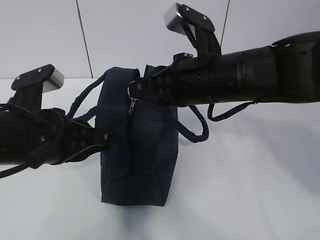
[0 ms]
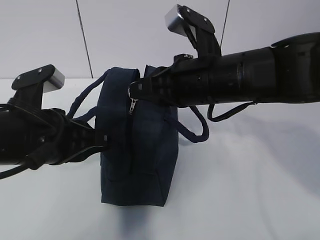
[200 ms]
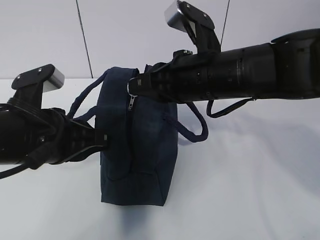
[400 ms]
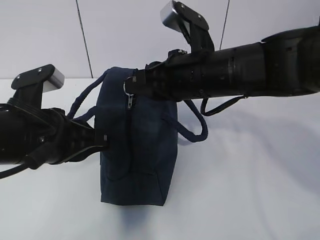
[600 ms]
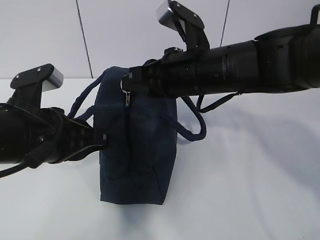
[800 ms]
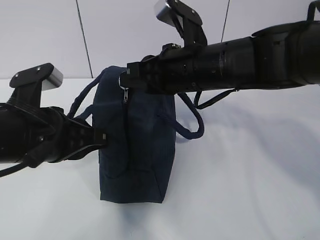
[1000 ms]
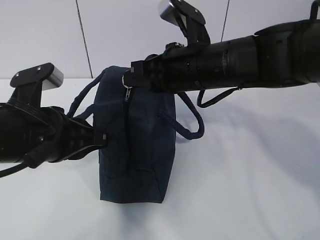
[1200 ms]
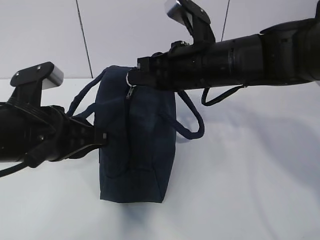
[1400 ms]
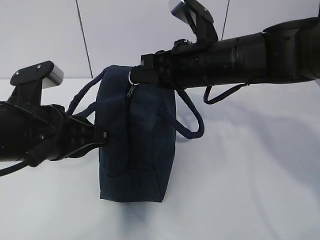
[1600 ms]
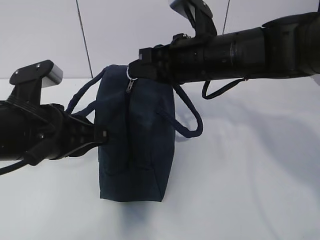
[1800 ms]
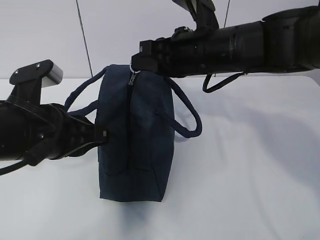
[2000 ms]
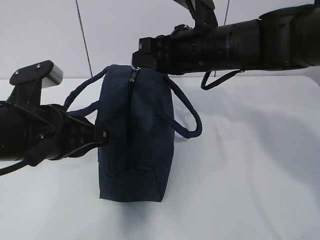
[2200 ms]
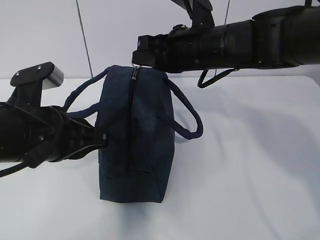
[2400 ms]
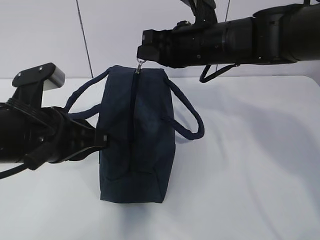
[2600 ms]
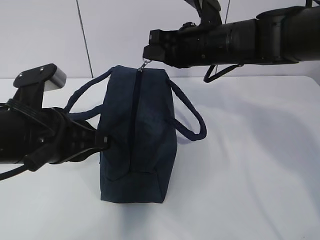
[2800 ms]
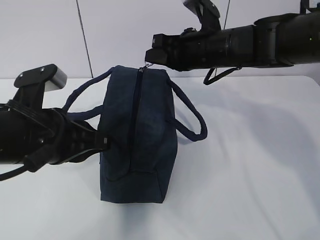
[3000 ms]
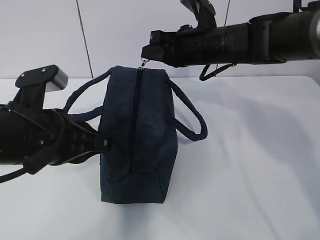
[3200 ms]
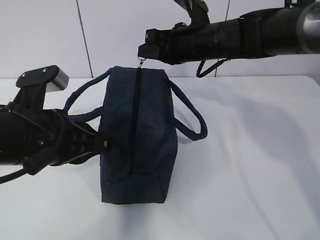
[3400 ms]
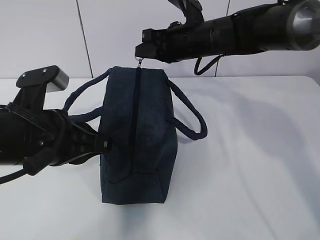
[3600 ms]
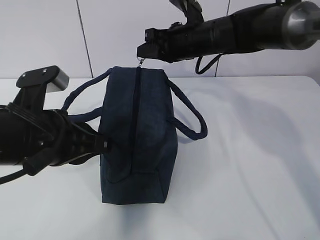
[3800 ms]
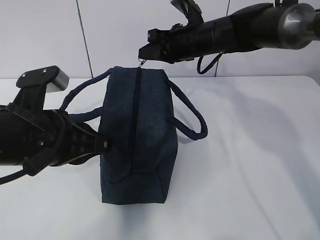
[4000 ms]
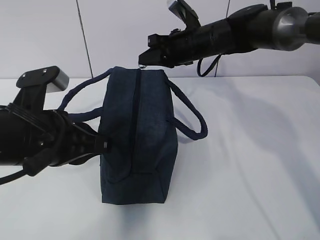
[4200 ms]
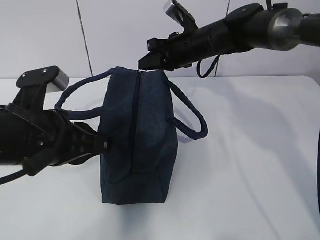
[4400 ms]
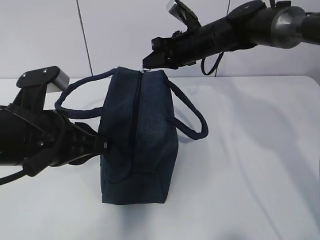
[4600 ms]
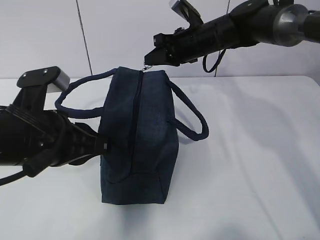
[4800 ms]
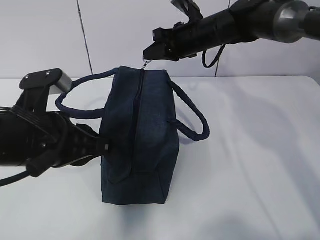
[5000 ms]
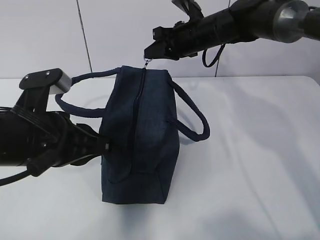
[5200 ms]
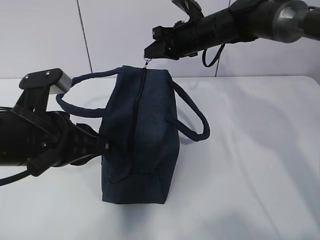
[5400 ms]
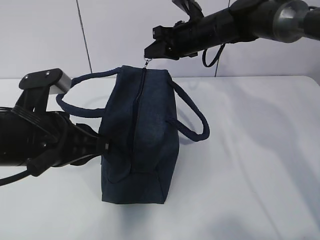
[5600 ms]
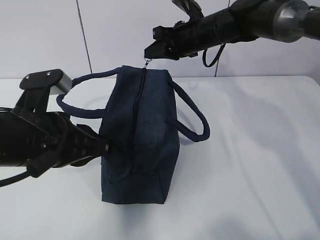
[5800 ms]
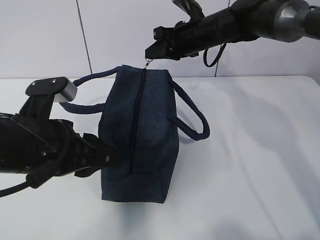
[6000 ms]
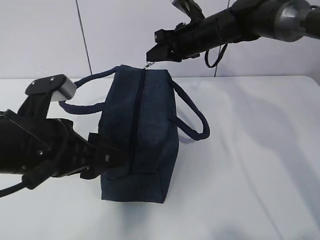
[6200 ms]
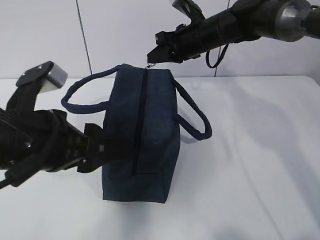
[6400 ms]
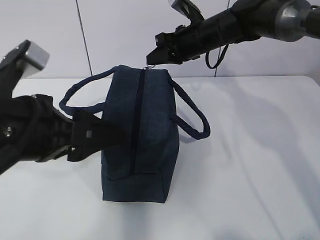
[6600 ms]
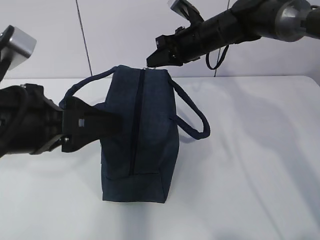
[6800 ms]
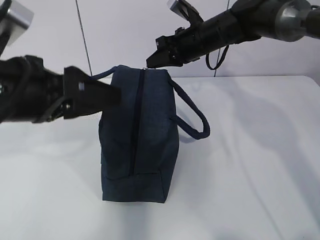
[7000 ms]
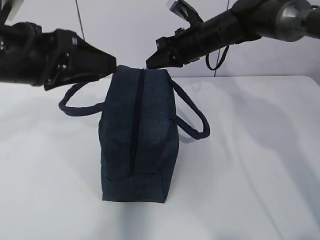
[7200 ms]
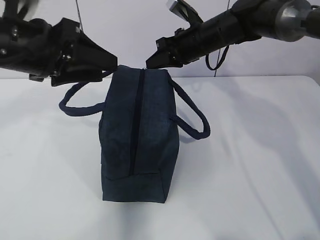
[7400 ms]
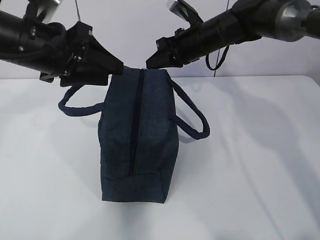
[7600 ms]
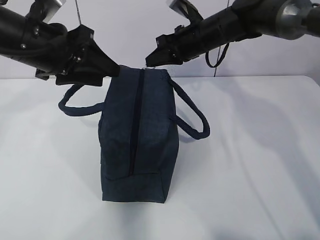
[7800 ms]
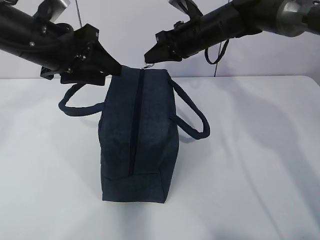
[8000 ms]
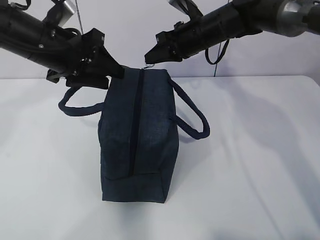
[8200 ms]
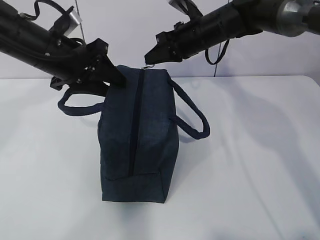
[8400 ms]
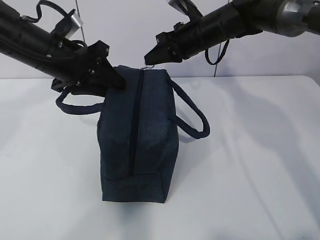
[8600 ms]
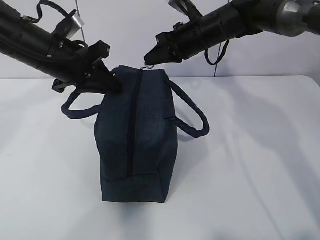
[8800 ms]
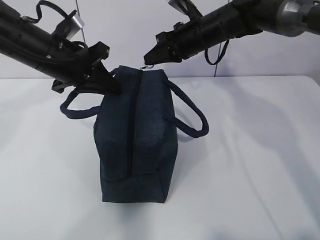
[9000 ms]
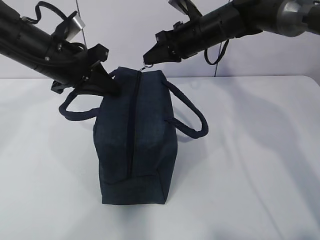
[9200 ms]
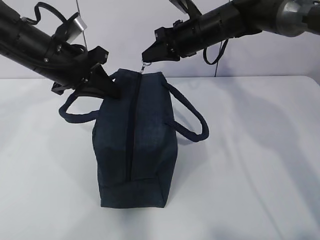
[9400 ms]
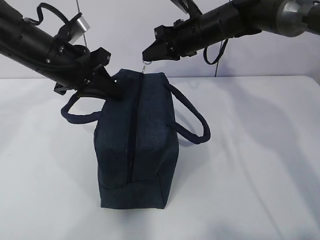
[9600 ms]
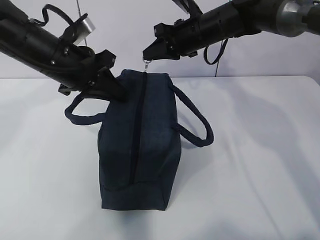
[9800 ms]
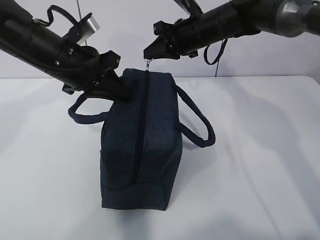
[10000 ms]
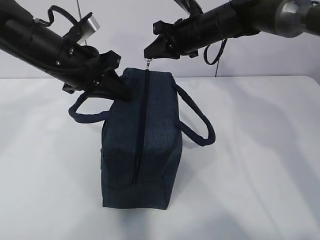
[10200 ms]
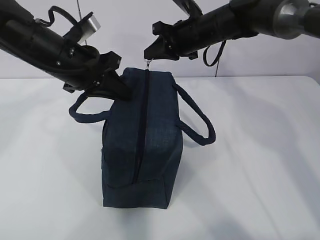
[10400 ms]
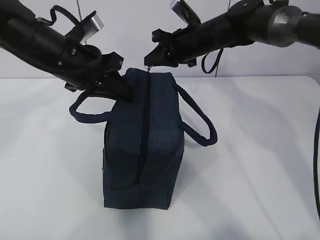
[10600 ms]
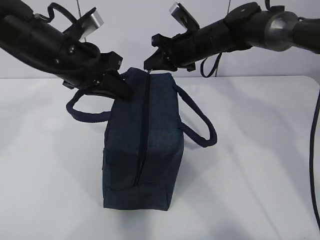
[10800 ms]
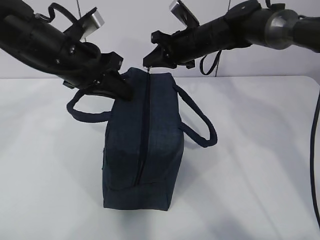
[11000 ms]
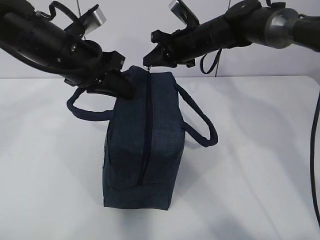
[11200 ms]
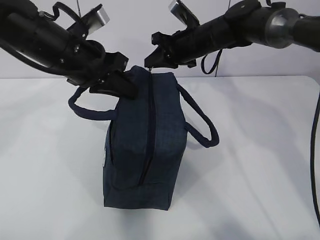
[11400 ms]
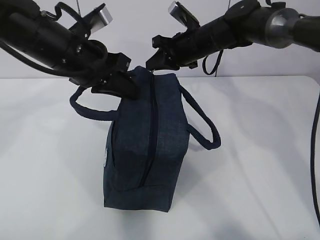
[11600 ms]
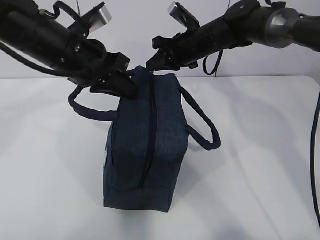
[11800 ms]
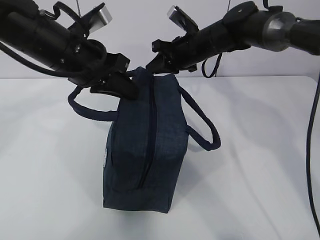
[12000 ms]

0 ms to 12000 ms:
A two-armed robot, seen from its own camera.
0 ms to 1600 ms: There are only small adjustments of the grippers.
1600 ms to 3000 ms: The right gripper travels forward by about 5 cm.
3000 ms to 4400 ms: The right gripper moves forward, roughly 10 cm.
4400 ms to 6000 ms: The left gripper opens.
6000 ms to 7600 ms: The left gripper moves forward and upward, approximately 15 cm.
7600 ms to 9000 ms: The left gripper ends up approximately 5 cm from where it was, and closes up.
9000 ms to 12000 ms: The grippers move only a little.

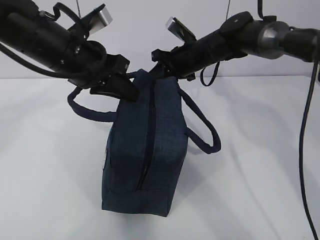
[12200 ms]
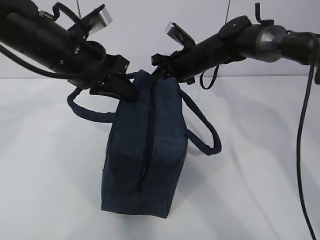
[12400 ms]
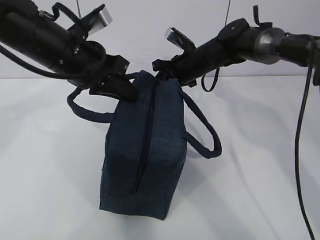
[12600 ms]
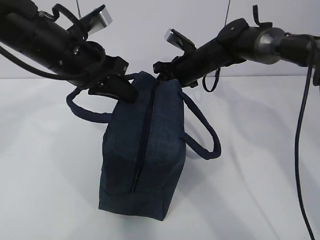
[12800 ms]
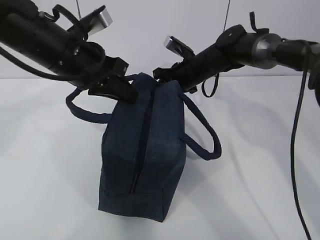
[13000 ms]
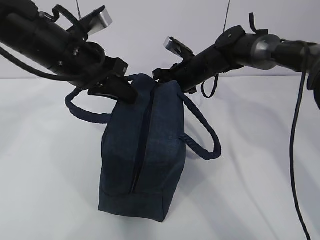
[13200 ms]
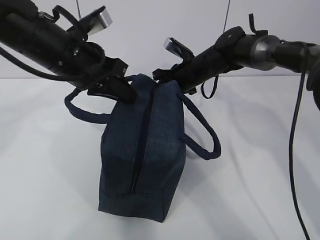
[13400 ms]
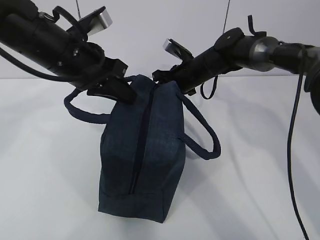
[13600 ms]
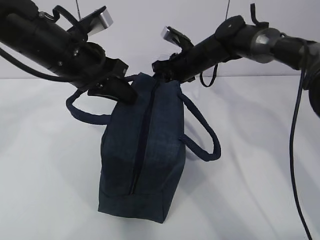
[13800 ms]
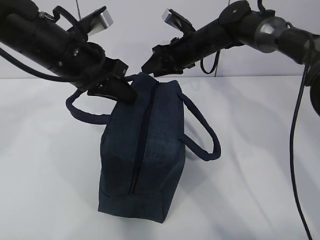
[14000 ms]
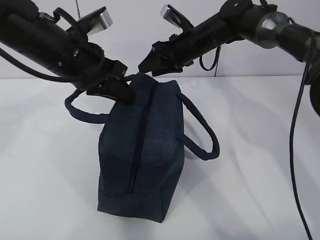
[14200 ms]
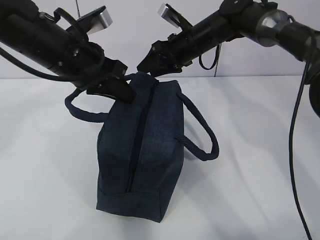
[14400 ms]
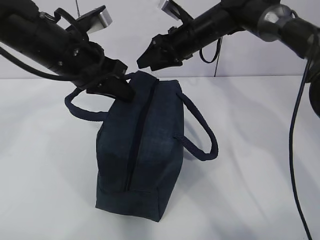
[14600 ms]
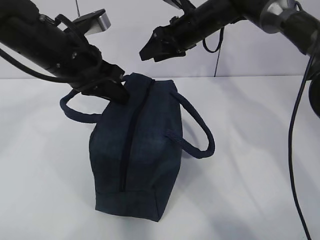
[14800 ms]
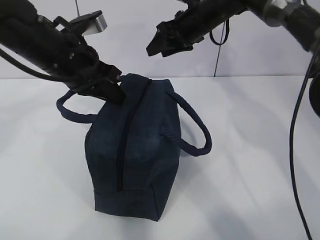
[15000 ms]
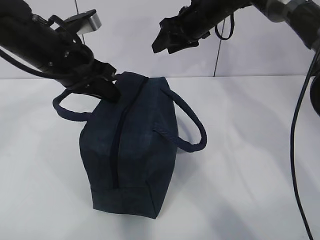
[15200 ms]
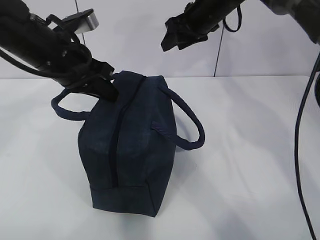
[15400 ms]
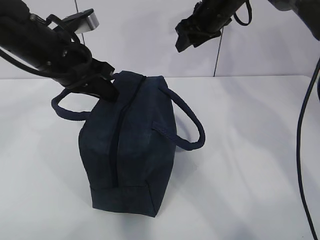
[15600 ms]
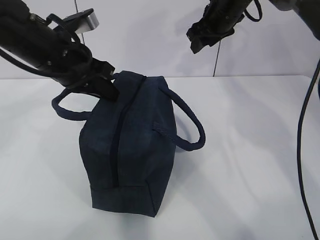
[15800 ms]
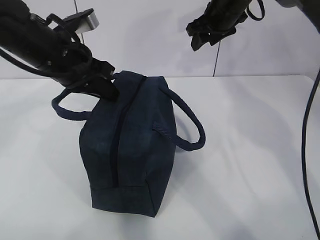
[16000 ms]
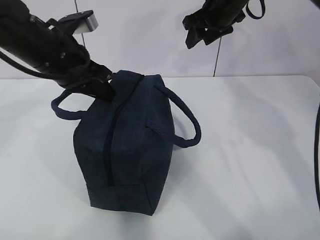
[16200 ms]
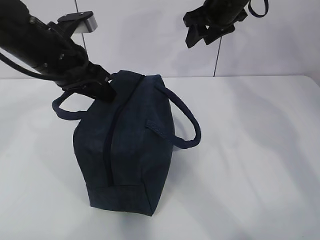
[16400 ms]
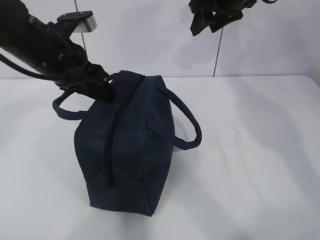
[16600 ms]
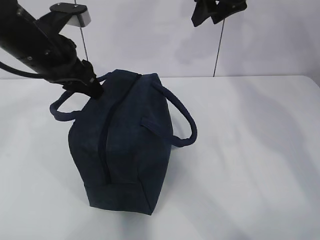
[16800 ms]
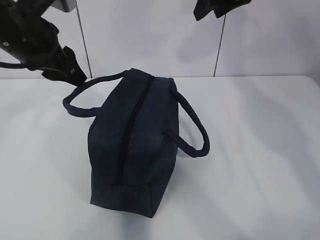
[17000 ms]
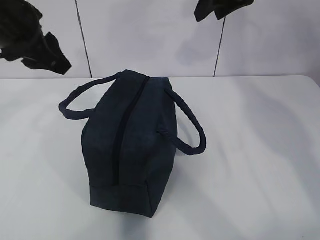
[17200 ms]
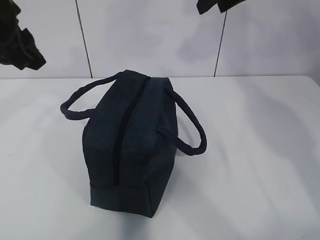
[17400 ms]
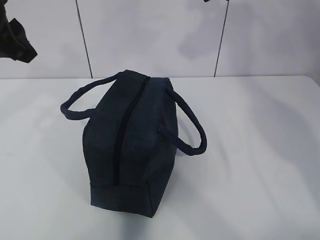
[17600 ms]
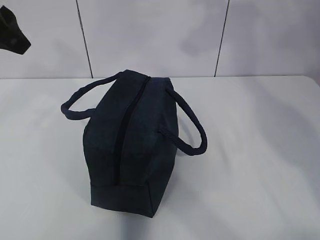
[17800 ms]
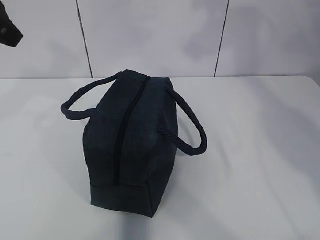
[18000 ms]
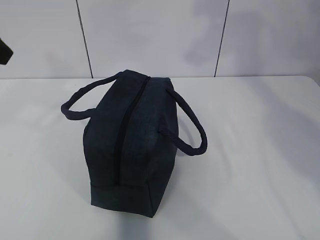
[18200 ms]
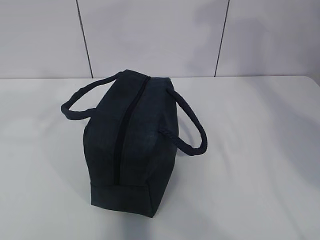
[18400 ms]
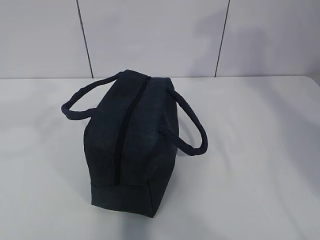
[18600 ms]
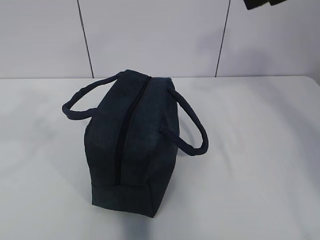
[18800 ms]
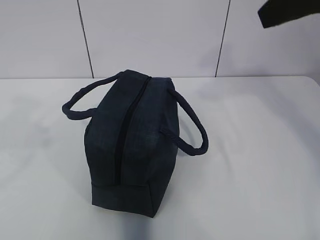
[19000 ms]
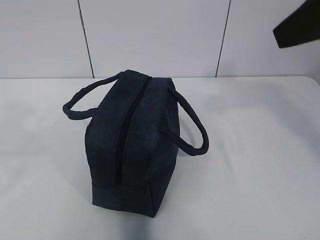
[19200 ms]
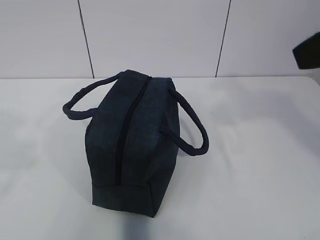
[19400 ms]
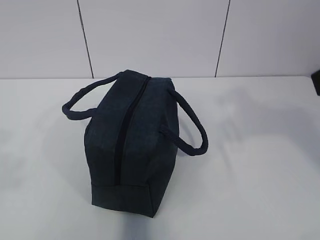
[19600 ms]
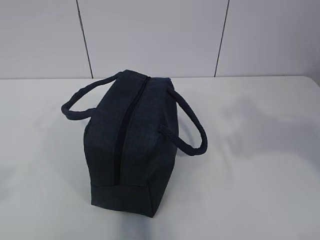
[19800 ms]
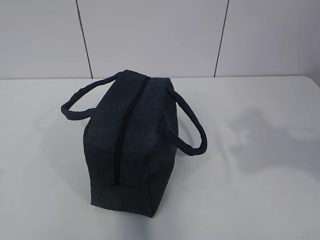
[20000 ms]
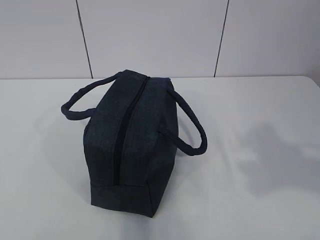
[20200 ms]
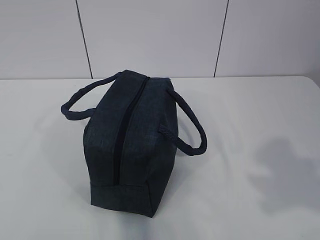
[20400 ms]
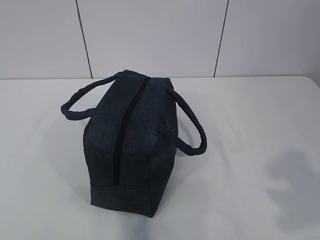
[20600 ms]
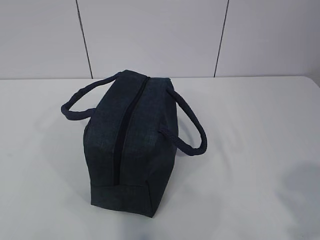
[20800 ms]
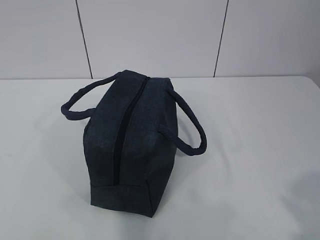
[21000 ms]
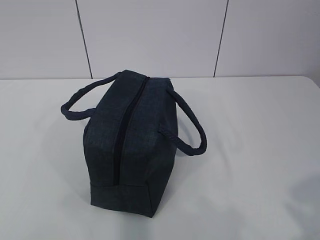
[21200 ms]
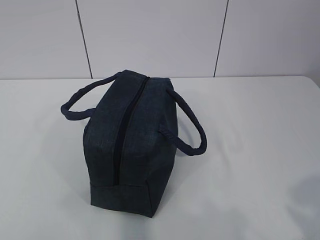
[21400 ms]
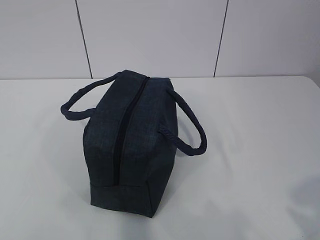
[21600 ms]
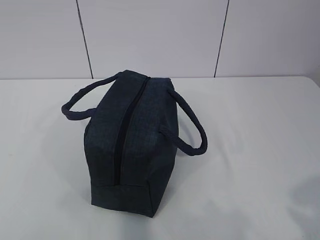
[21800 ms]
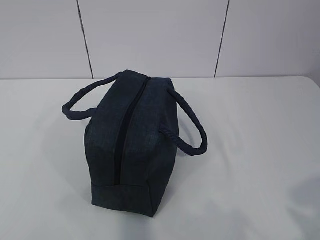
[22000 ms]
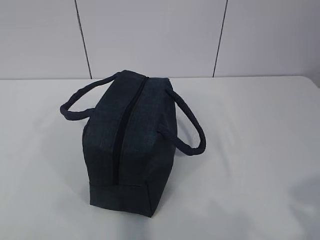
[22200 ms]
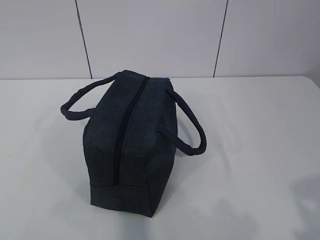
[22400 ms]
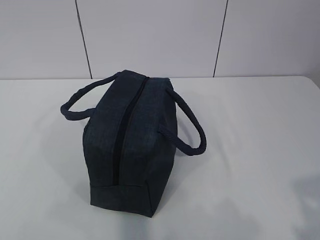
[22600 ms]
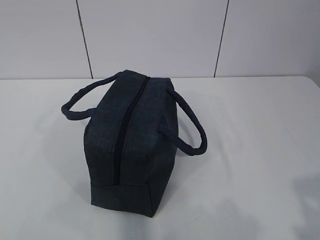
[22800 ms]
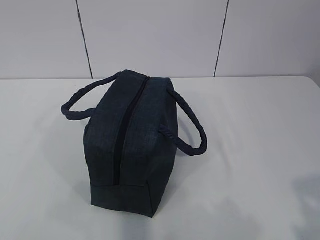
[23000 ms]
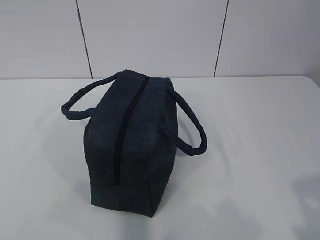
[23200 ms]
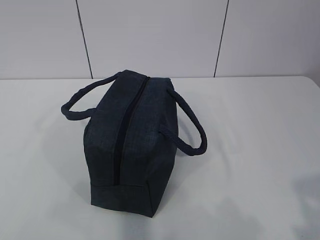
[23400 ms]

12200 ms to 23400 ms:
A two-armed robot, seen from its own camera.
12200 ms to 13800 ms: The grippers move only a little.
13800 ms to 15400 ms: The right gripper travels upward by about 10 cm, and opens.
15400 ms to 17000 ms: The right gripper moves upward and backward, some 10 cm, while the left gripper moves about 5 cm, and opens.
17000 ms to 18600 ms: The left gripper shifts roughly 15 cm backward and to the left, while the right gripper moves backward and upward, some 15 cm.
18600 ms to 20200 ms: The right gripper is displaced backward and downward by some 25 cm. The left gripper moves backward, roughly 15 cm.
